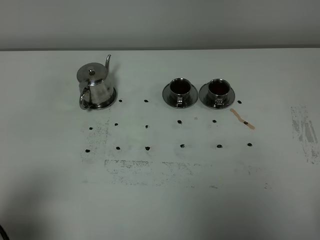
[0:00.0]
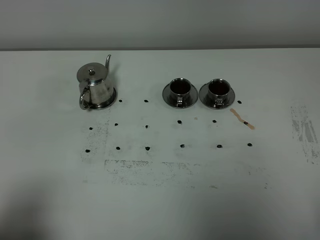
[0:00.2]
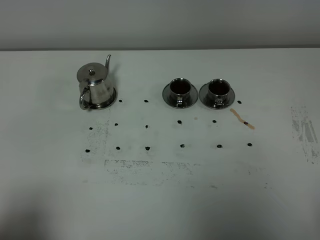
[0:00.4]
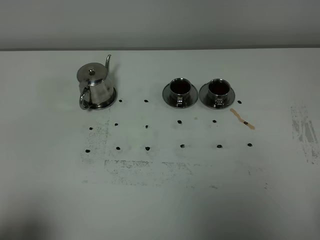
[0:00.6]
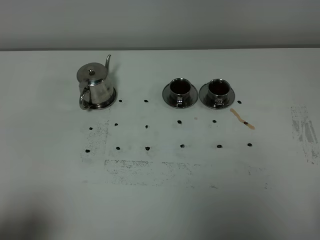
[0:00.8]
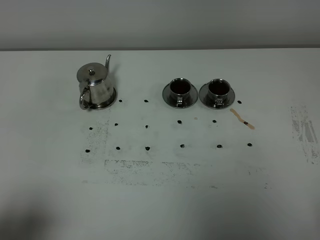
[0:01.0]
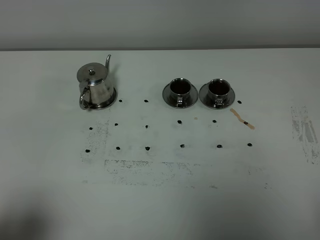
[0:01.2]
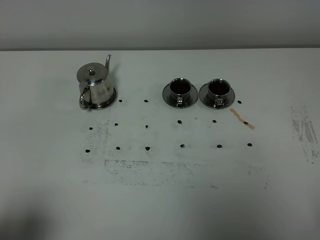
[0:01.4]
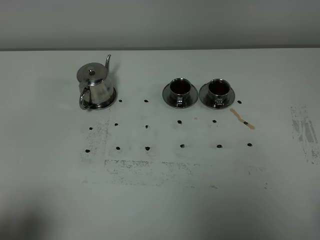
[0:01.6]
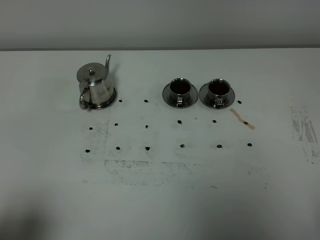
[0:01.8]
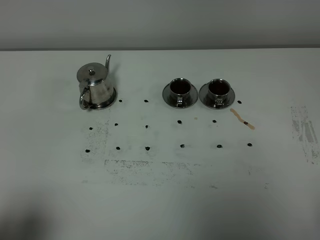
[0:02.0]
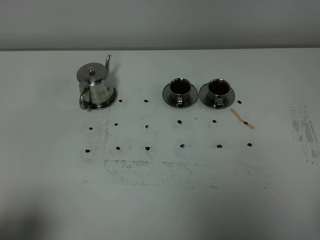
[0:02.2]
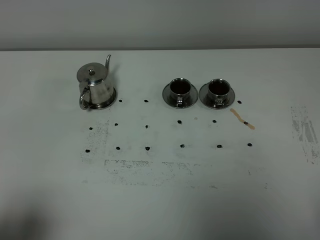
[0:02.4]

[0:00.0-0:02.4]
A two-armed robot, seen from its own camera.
Task of the whole recording: grasp the stainless steel teapot and pour the tea into the two stainless steel teacups one by one, put the stainless steel teapot back in its original place.
0:01.2 to 0:02.4: Both grippers stay about where they are.

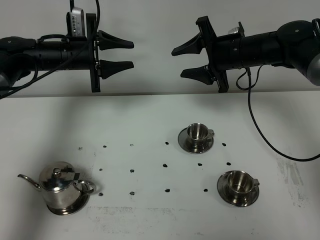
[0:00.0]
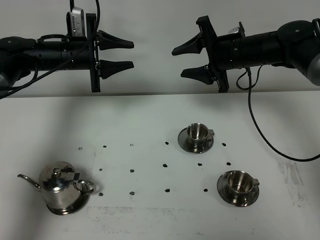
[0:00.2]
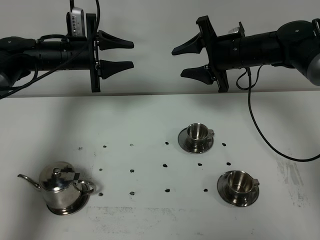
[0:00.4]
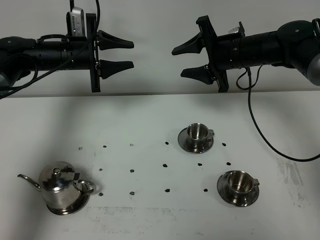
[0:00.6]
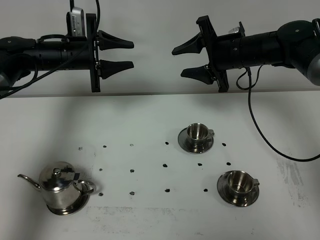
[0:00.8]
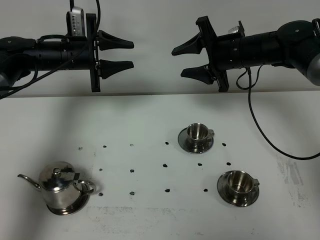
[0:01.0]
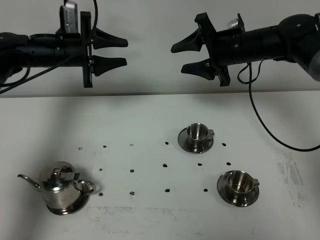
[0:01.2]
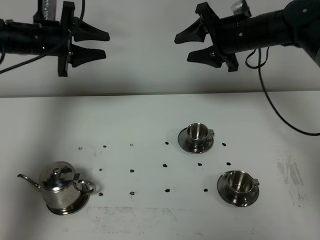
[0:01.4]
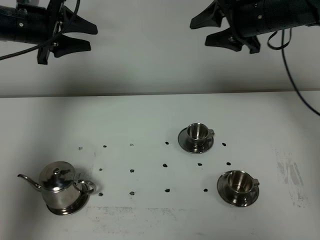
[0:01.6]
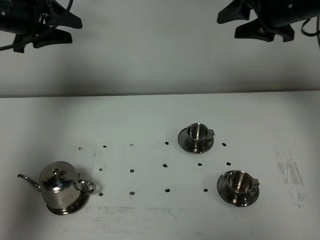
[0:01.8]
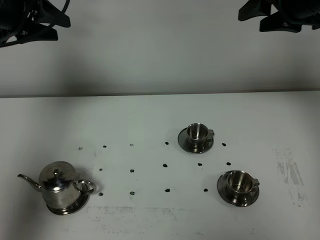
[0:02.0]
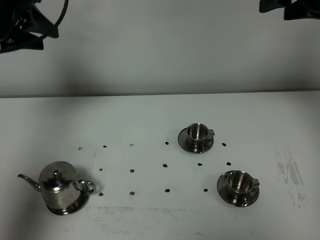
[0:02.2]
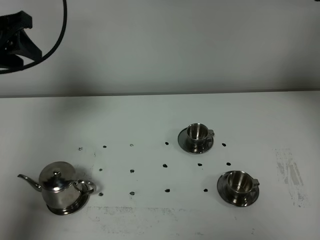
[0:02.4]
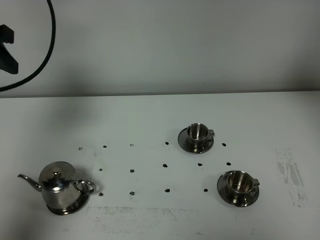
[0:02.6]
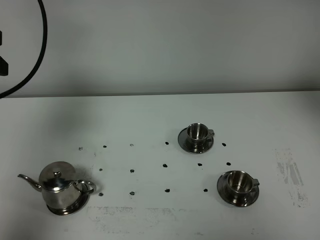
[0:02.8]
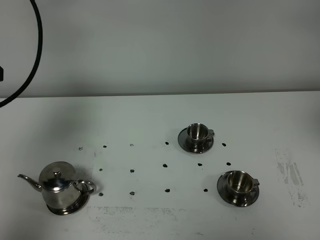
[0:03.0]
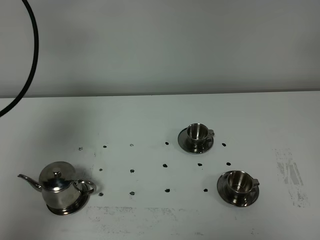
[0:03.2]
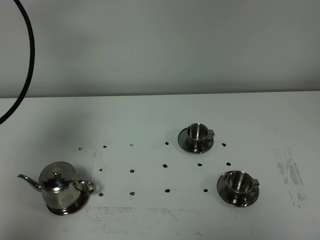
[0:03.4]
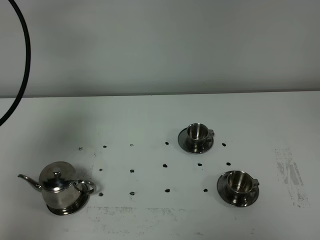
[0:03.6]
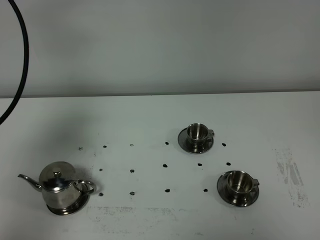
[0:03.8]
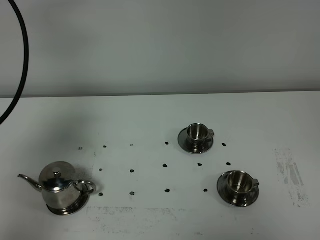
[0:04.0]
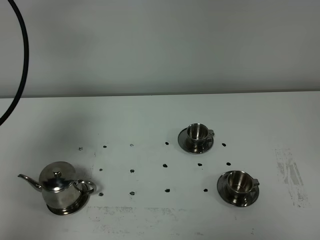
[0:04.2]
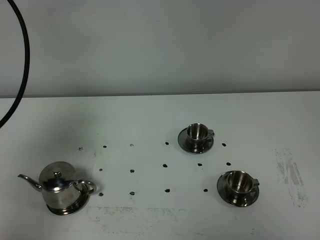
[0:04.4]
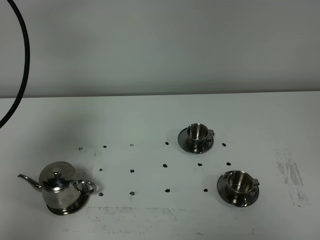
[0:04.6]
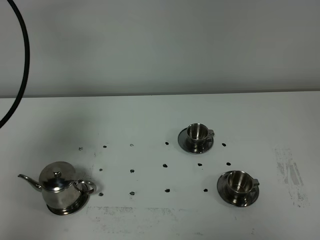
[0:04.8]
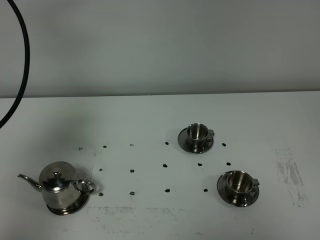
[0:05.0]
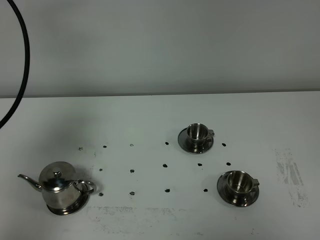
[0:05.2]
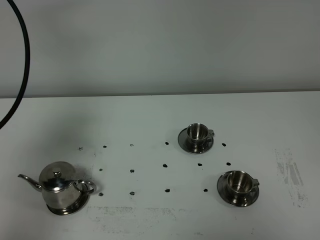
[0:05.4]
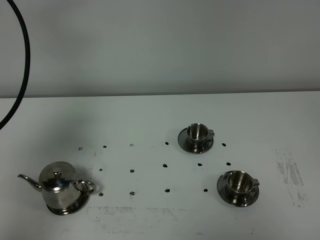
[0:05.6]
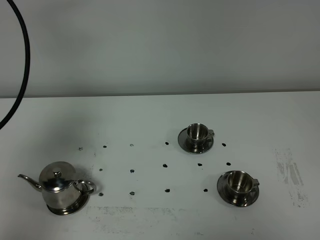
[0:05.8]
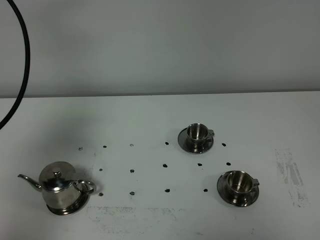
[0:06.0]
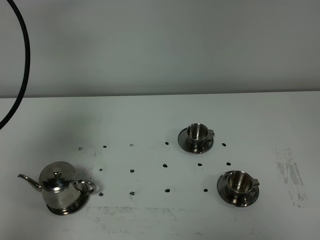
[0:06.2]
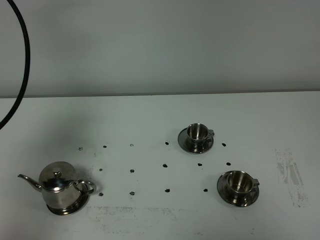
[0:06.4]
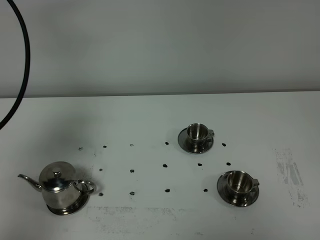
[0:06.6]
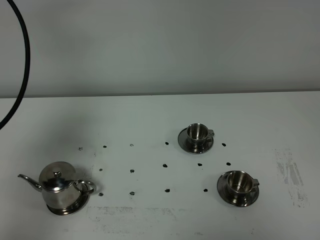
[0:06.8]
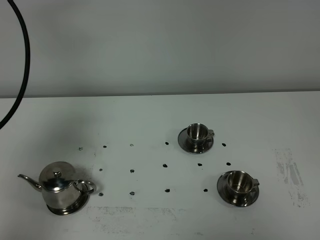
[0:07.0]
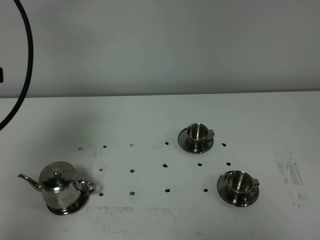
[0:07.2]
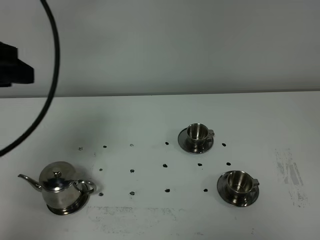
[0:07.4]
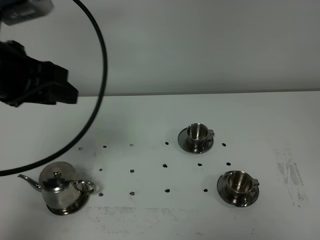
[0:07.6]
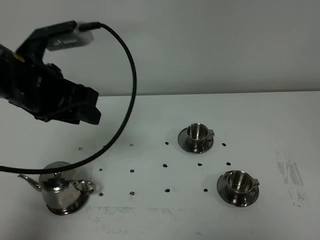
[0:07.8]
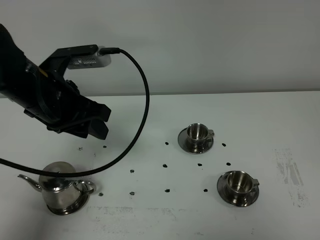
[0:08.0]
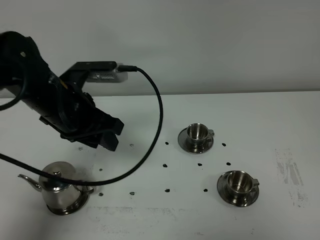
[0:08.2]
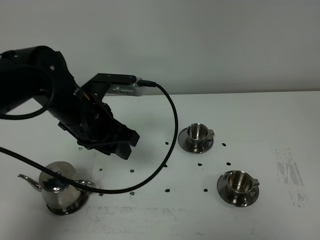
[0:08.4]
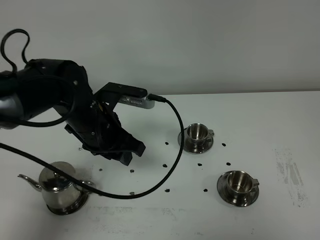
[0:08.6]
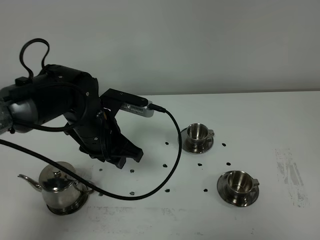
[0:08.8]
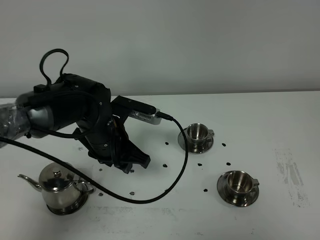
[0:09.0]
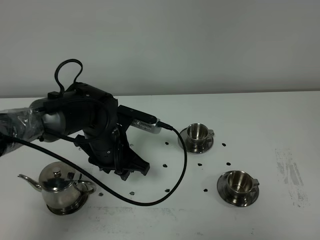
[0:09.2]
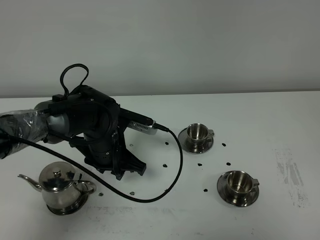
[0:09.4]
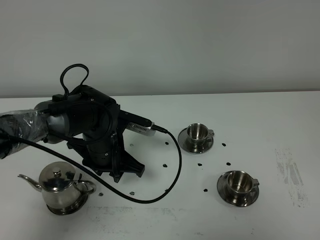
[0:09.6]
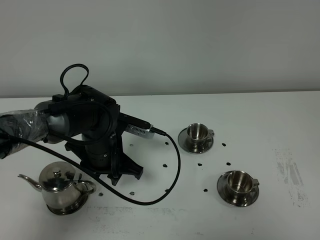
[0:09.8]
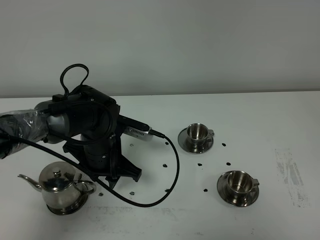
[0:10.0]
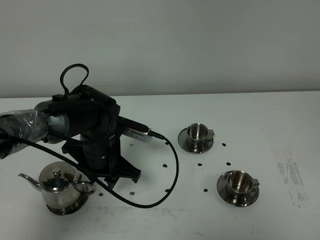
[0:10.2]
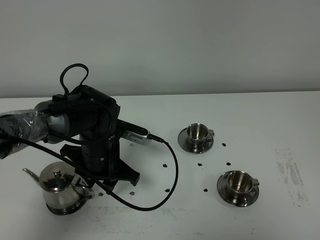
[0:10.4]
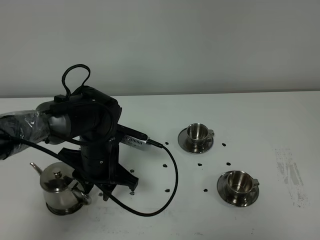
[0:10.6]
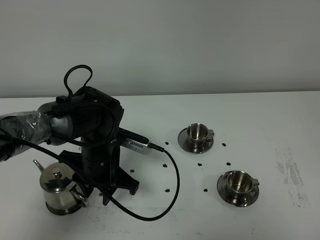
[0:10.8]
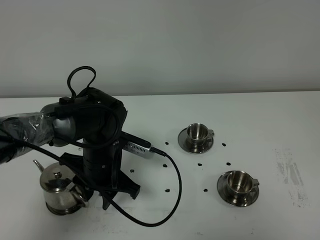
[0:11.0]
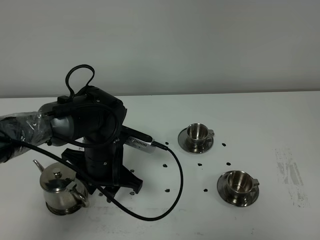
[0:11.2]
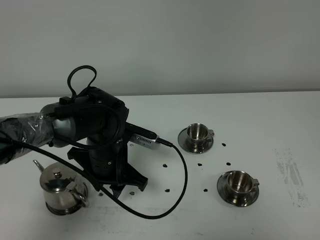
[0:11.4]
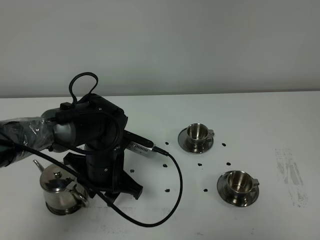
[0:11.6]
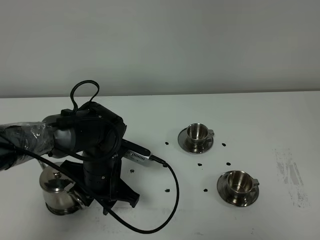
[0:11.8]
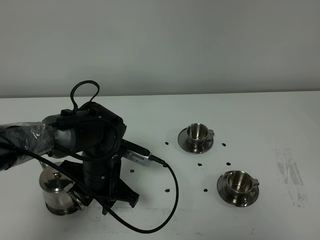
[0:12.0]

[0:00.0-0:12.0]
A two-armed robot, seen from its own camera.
Task of the whole recording: grasp the stainless steel teapot and pour the tea into the two stainless steel teacups one by one, put the stainless steel teapot back in its original place.
0:00.0 to 0:01.6: The right gripper travels upward by about 10 cm; the left gripper travels upward and to the left by some 10 cm.
0:01.6 to 0:03.0: The left gripper goes approximately 20 cm backward and upward; the right gripper goes about 30 cm backward and upward.
0:06.0 to 0:07.6: The left gripper travels to the right by some 10 cm; the right gripper closes.
0:07.6 to 0:09.0: The left gripper shifts approximately 20 cm downward and to the right.
0:09.0 to 0:10.4: The grippers move only a little.
0:10.4 to 0:12.0: There are only small adjustments of the grippers.

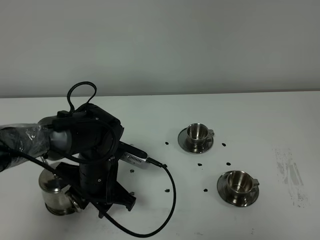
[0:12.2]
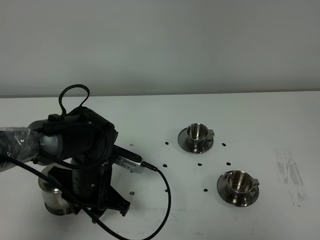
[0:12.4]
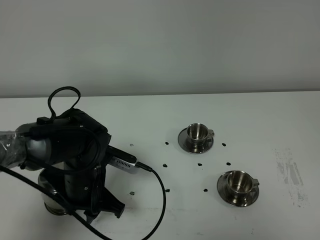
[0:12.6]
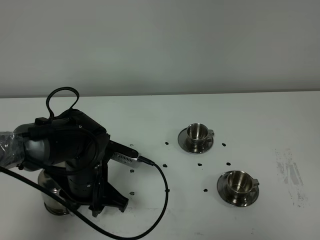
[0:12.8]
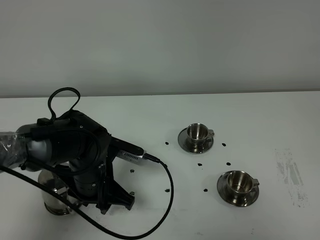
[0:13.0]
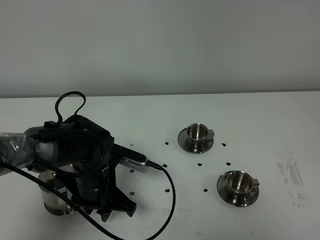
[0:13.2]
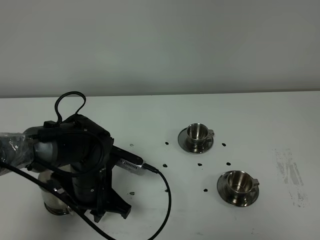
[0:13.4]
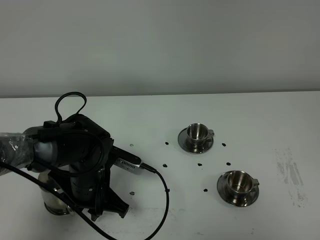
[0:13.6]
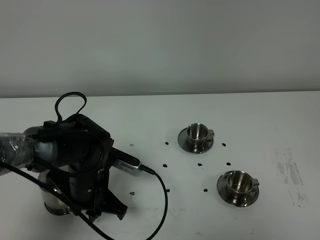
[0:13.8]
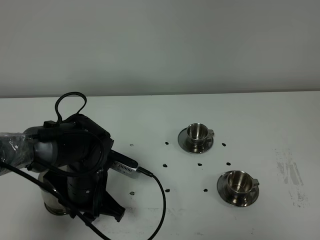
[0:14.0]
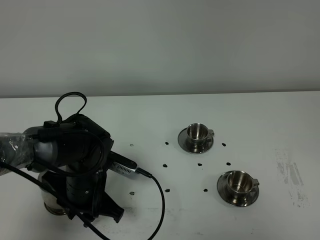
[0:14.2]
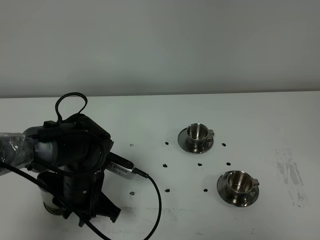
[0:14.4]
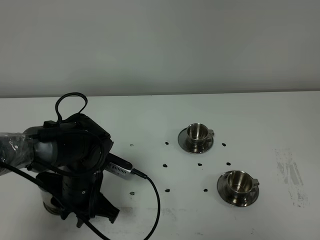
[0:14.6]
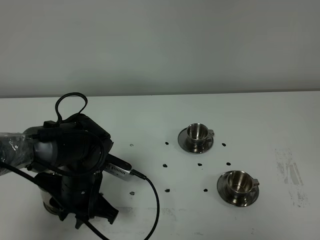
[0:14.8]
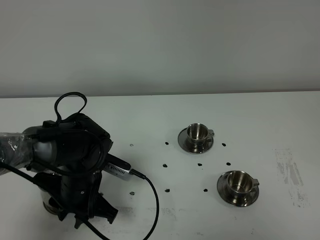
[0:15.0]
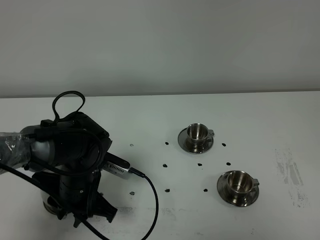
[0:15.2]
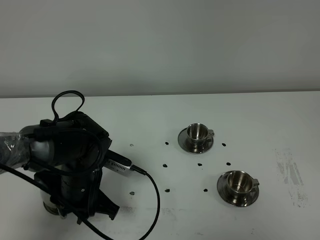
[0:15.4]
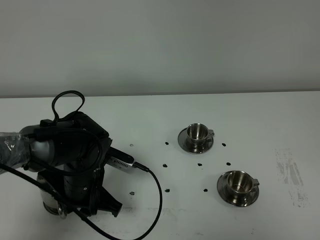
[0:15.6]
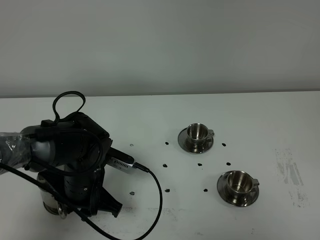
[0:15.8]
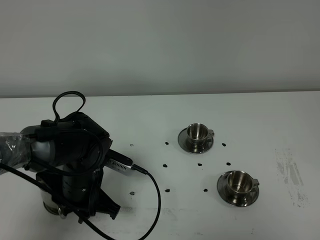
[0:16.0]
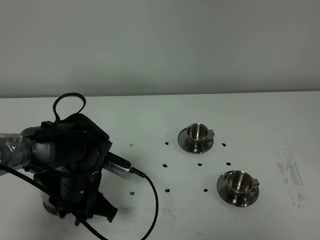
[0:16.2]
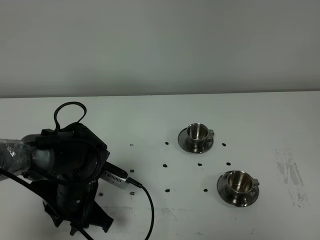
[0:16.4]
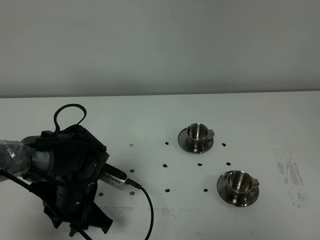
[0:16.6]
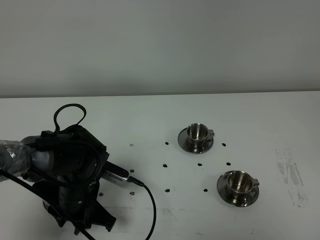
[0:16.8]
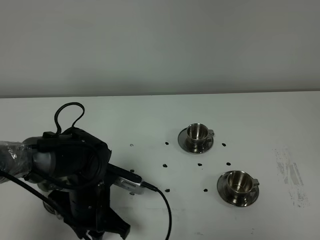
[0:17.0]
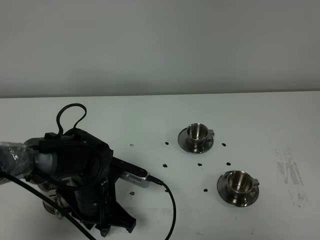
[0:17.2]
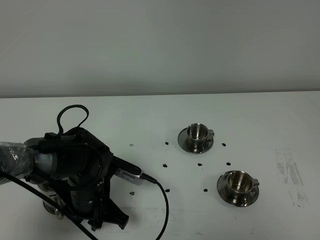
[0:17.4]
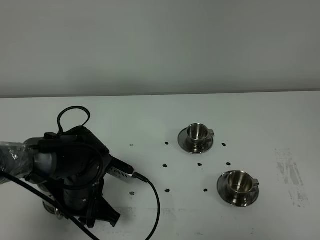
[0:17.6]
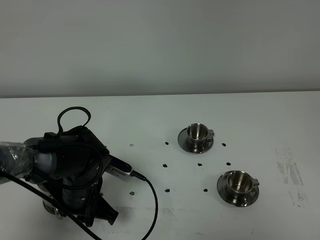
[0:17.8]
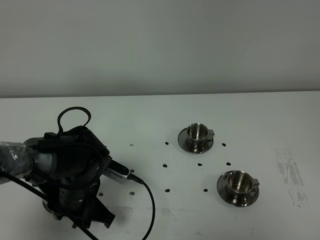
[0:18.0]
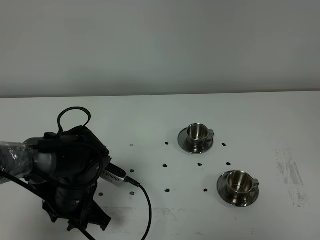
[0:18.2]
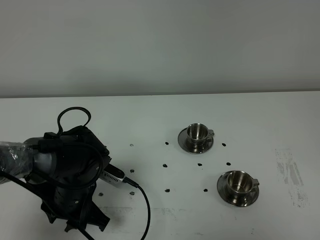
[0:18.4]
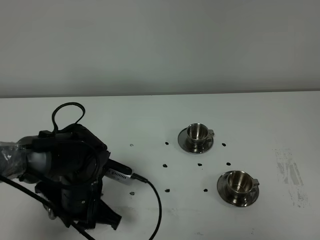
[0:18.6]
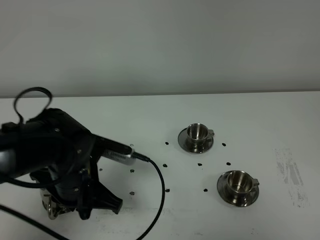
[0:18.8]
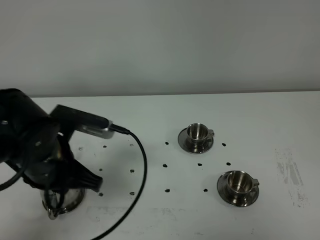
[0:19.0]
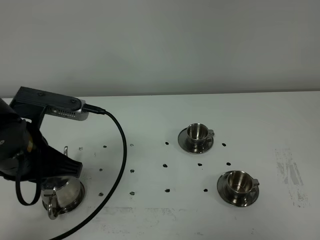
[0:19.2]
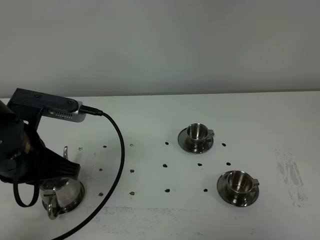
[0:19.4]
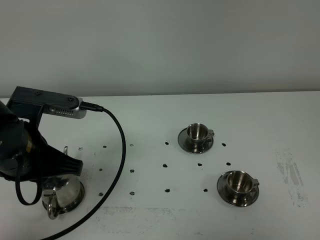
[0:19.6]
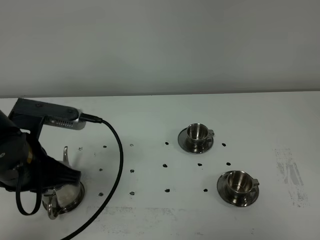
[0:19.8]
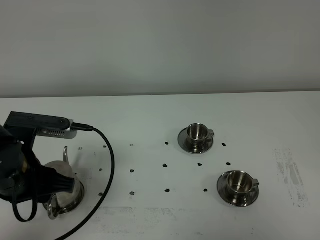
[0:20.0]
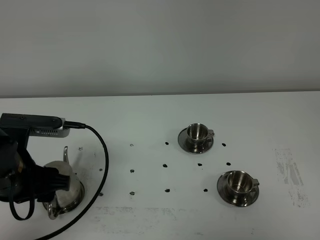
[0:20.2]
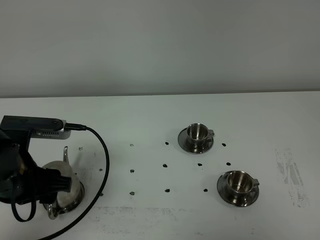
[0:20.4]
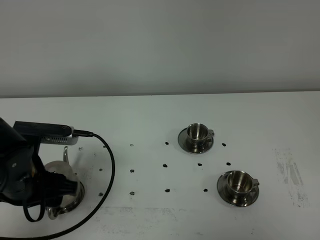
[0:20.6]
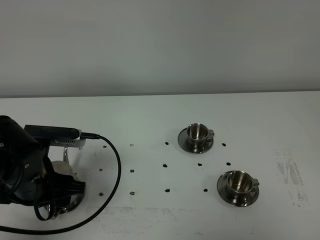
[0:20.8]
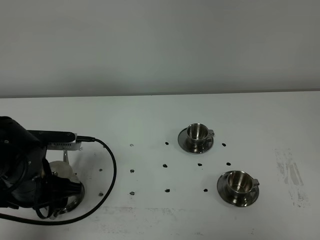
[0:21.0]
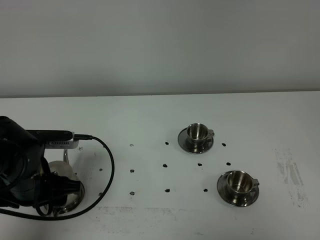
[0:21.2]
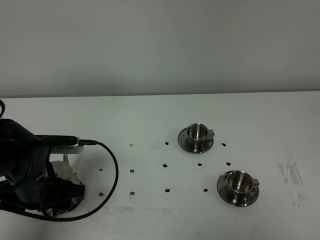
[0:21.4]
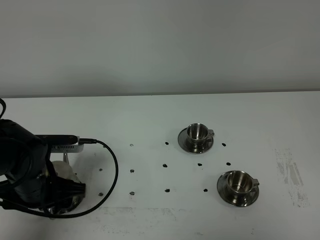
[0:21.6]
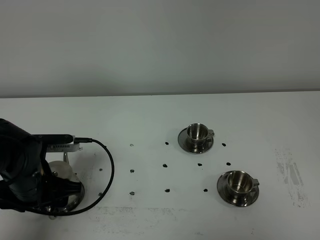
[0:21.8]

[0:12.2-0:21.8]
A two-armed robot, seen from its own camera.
Task of the whole recording: grasp the stainless steel teapot and pour the tea into the two stainless steel teacups one by one, put the stainless steel teapot back in its original place.
0:12.2 to 0:18.6: The grippers make only small movements.
0:18.6 to 0:20.2: The left gripper travels upward and to the left by roughly 15 cm, and opens up.
0:20.2 to 0:21.8: The left gripper goes about 10 cm downward.
